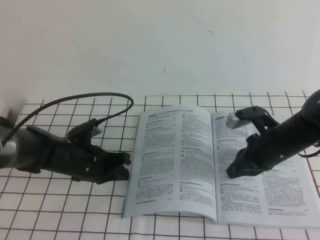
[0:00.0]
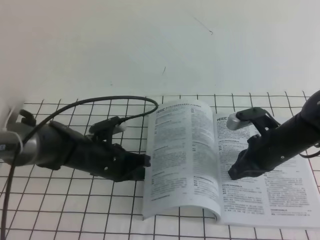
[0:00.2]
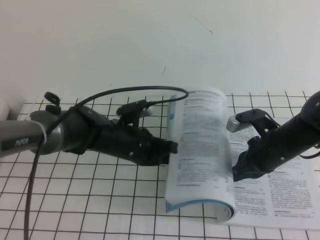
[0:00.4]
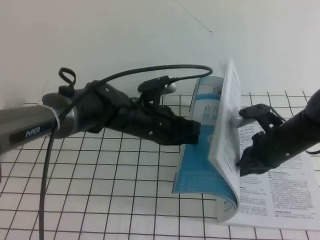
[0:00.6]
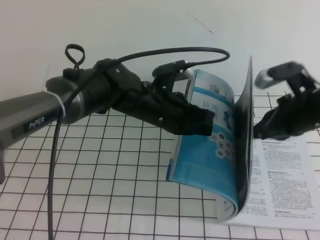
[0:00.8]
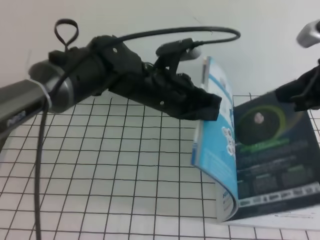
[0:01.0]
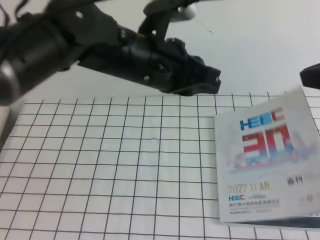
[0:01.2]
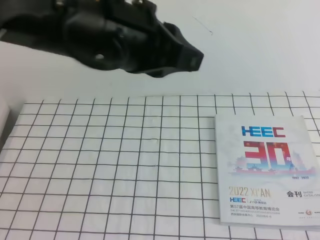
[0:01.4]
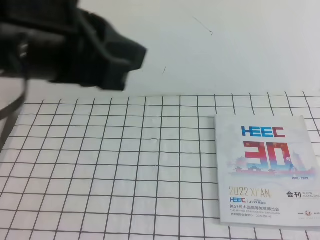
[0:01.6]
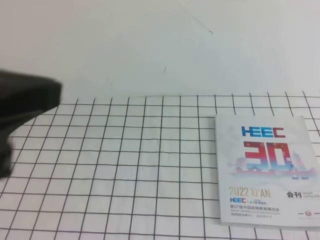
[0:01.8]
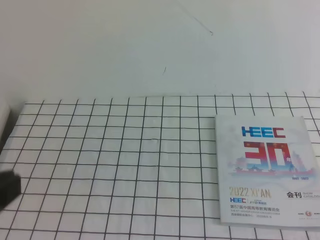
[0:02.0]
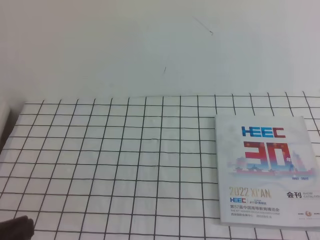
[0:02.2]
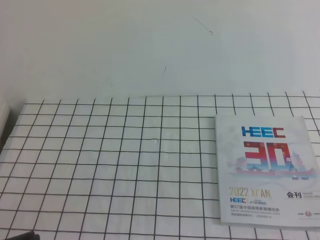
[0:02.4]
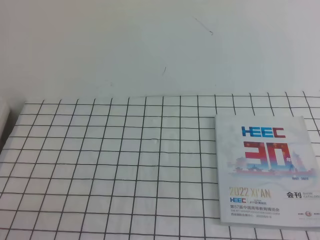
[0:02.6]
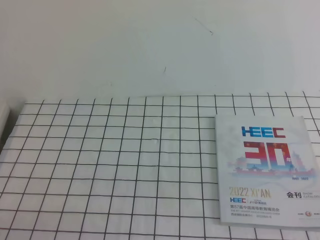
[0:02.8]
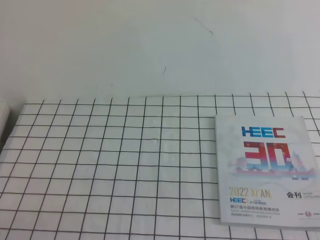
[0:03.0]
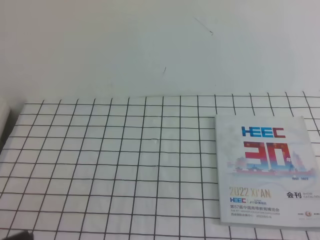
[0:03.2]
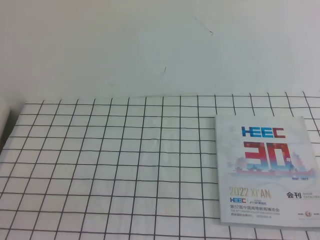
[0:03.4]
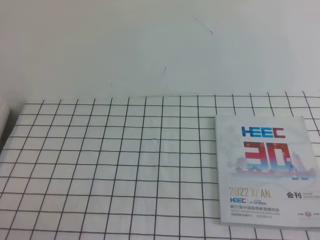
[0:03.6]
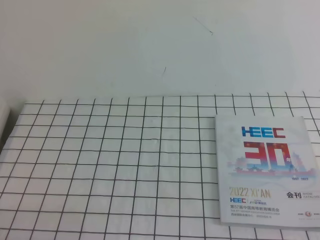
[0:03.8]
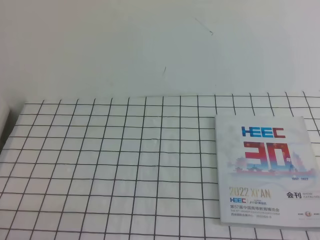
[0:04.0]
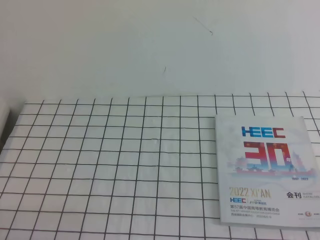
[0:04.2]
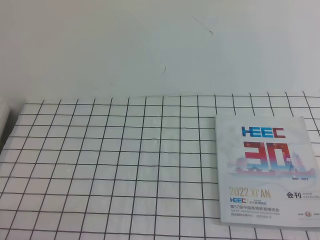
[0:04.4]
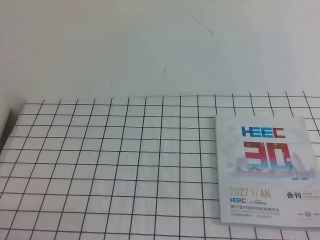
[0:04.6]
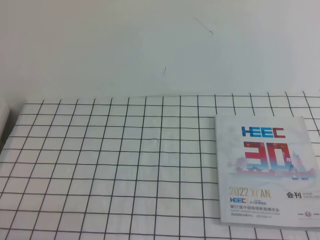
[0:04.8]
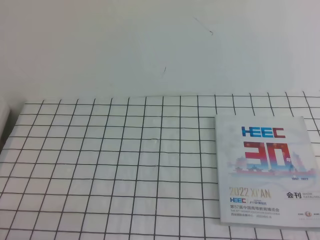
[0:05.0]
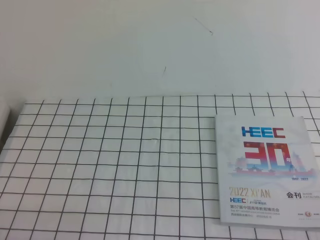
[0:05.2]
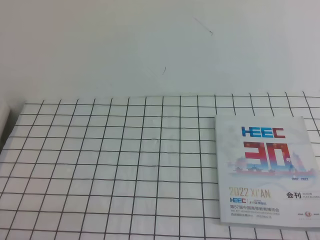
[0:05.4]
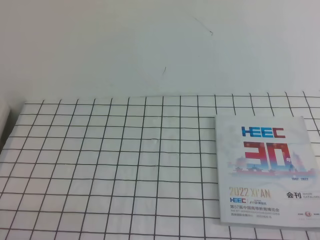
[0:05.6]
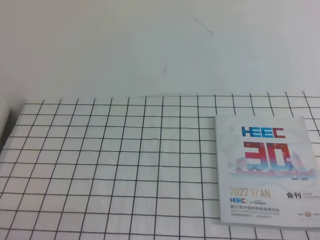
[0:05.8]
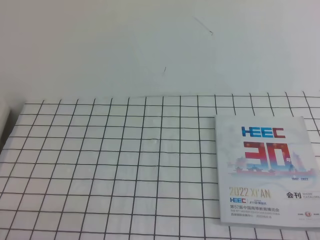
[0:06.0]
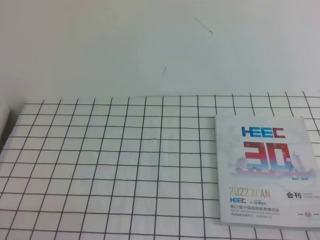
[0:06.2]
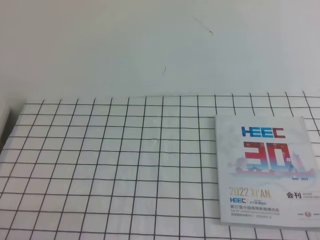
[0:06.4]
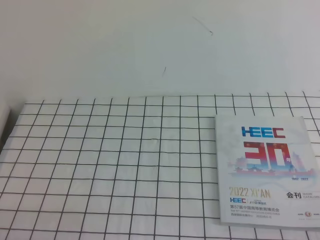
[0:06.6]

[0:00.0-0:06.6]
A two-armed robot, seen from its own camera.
Task of the whole recording: on the white tablecloth, hold the book with one hand and close it with the other.
Step, 0:00.0 to 0:06.6: Close the open book.
0:00.0 to 0:01.6: Both grippers move upward and backward, approximately 35 cm.
0:01.6 to 0:03.2: The right gripper travels downward and backward by about 20 cm. Meanwhile the left gripper goes about 25 cm downward, backward and to the left.
